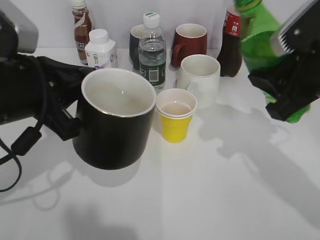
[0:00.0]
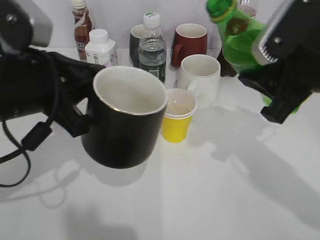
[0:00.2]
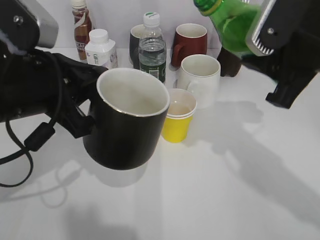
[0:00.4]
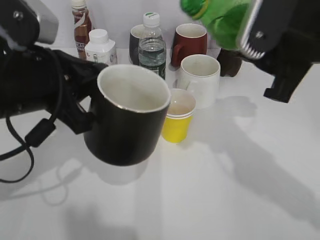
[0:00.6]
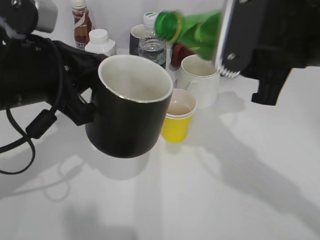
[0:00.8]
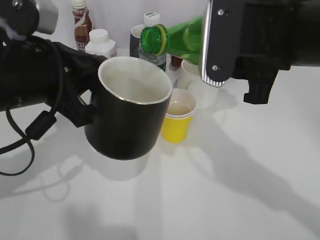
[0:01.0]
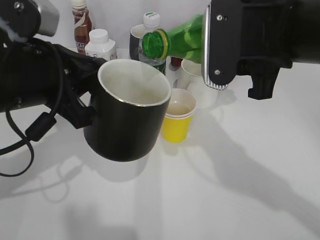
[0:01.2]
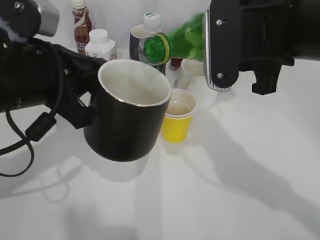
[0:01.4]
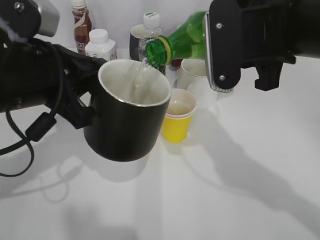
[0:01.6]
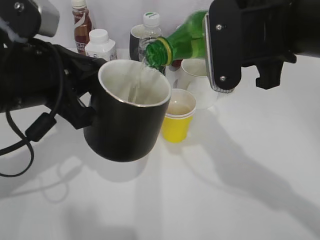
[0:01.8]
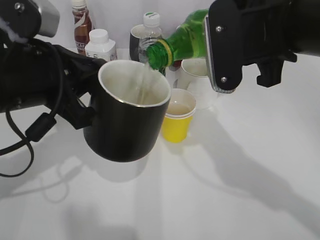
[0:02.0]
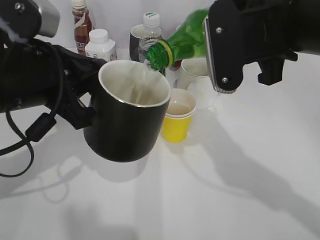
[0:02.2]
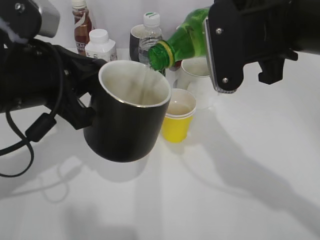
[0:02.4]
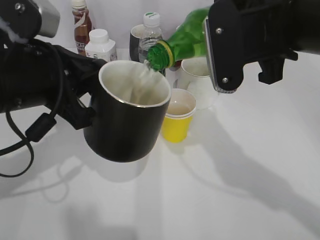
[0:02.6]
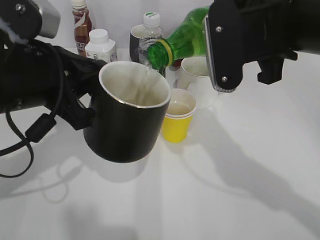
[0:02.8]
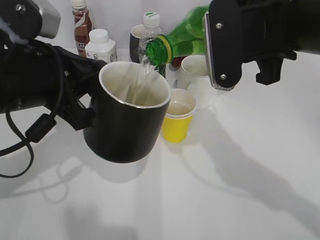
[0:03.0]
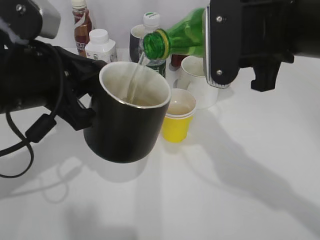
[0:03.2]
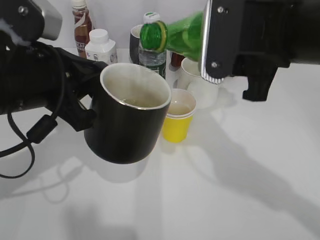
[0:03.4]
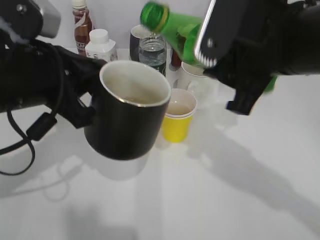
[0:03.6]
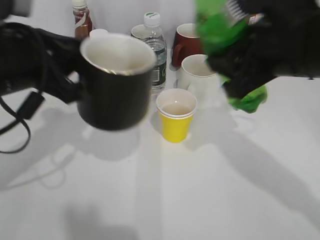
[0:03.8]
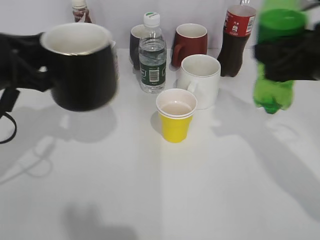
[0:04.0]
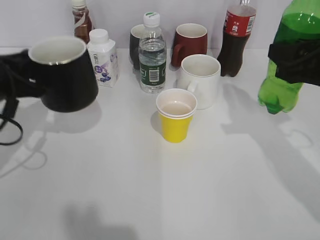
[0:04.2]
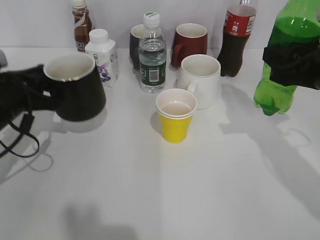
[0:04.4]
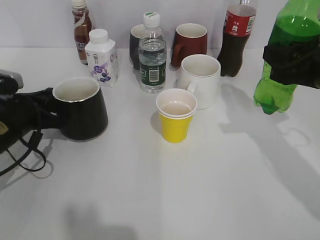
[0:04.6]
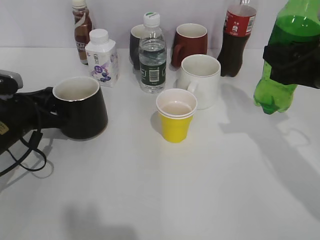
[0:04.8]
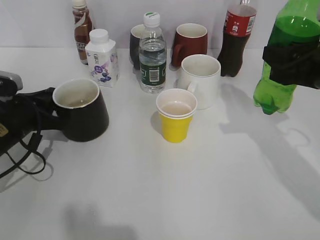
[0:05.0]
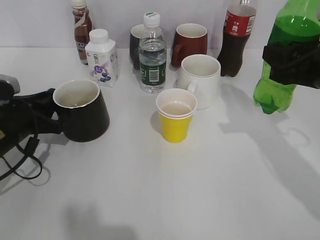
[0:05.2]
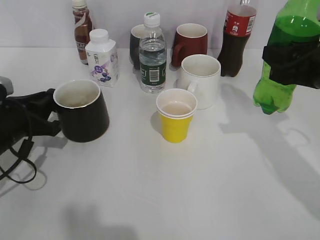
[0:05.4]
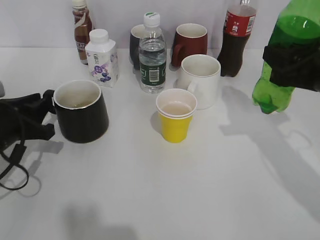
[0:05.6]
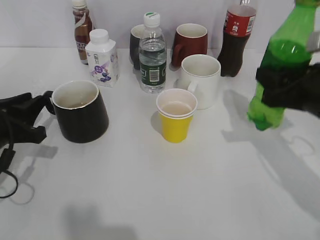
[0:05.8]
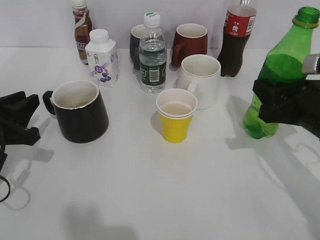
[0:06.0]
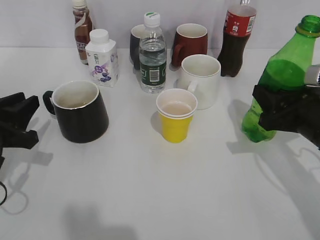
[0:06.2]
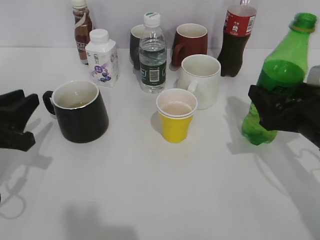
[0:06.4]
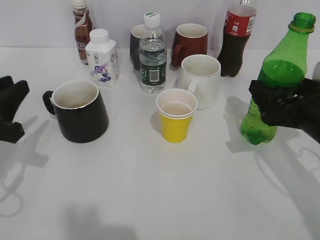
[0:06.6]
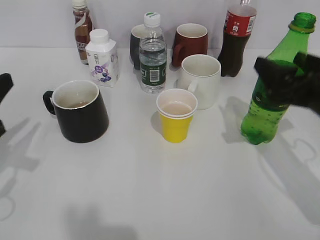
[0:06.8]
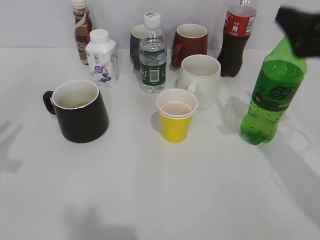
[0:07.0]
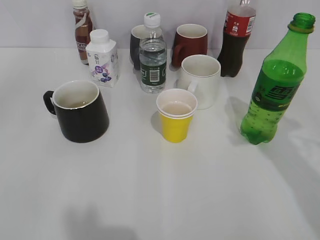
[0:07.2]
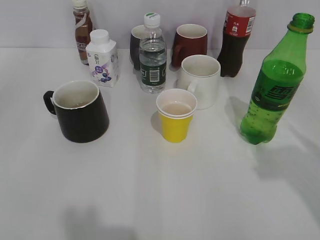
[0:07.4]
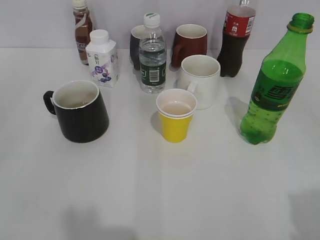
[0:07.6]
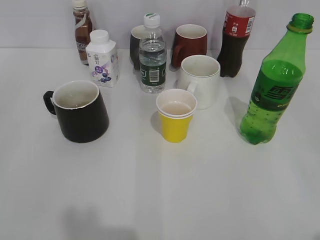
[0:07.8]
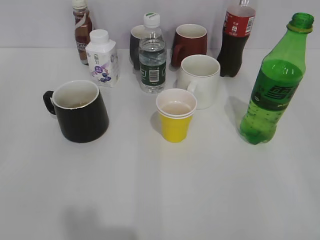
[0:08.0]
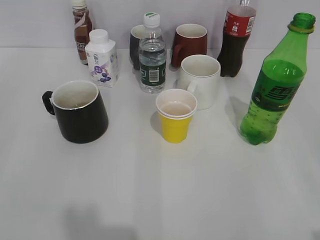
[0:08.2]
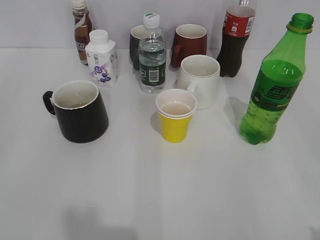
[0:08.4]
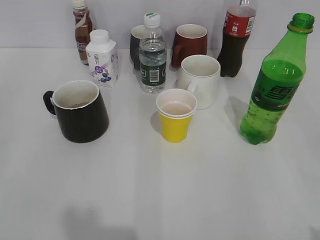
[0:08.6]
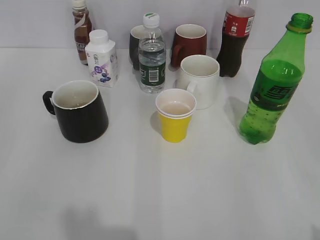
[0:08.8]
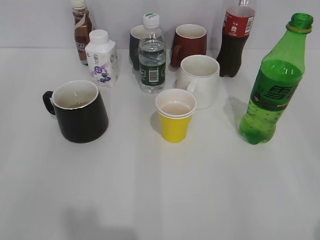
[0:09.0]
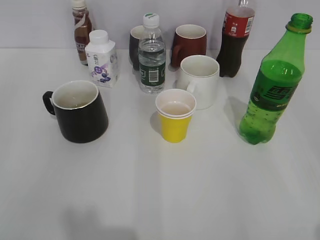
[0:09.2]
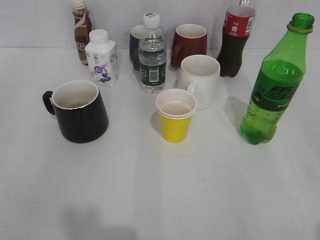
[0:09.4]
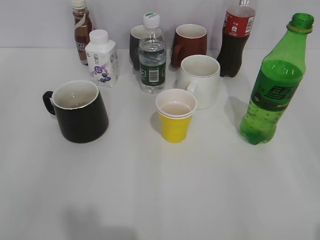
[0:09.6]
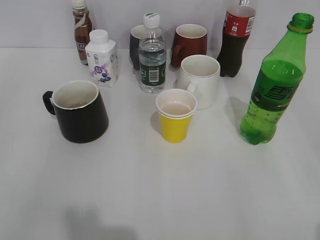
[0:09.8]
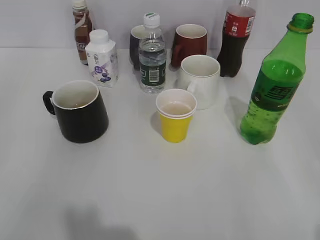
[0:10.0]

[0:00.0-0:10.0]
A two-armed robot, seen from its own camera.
Step, 0:00.0 to 0:03.4: Pour the sprite from bottle to cup with right gripper.
Step, 0:03.6 to 0:05.2: Place the black cup on the table with left gripper.
Step, 0:05.4 to 0:06.8: Place the sprite bottle on the table with right gripper.
0:00.0 to 0:01.4: The right gripper heads to the left, covering some 10 cm.
0:01.4 to 0:02.8: The grippers move only a little.
0:02.8 to 0:04.2: The left gripper is displaced to the left, downward and forward by about 15 cm; the right gripper goes approximately 10 cm to the right and downward.
0:04.2 to 0:05.8: The left gripper moves downward, some 5 cm.
0:05.8 to 0:07.2: The right gripper goes roughly 15 cm upward and backward, and opens; the left gripper goes roughly 20 cm upward and backward.
